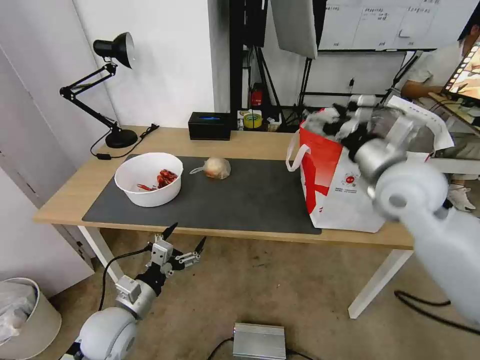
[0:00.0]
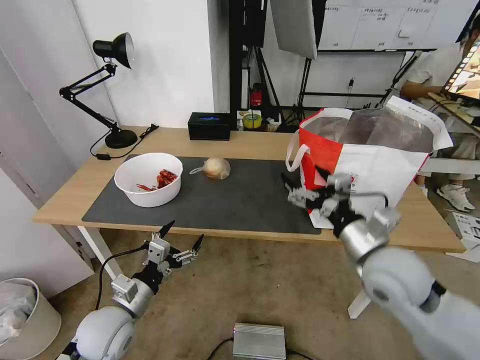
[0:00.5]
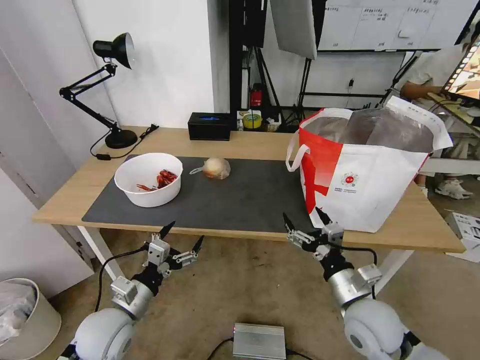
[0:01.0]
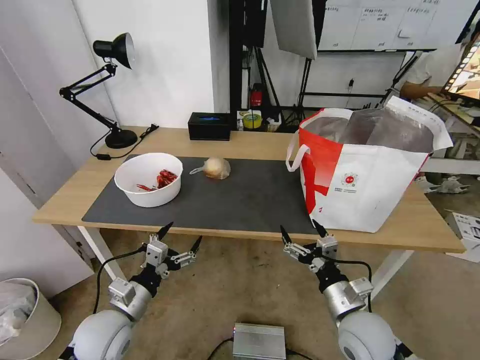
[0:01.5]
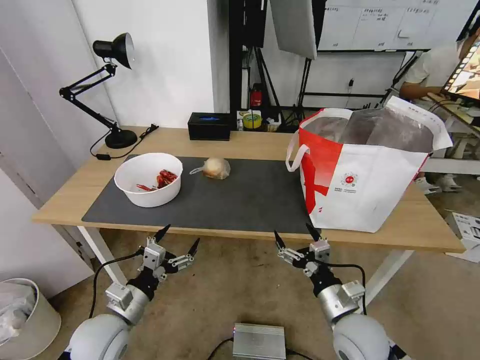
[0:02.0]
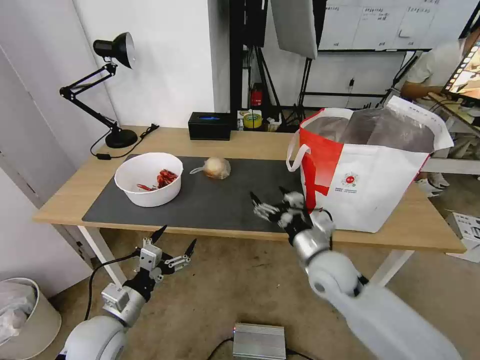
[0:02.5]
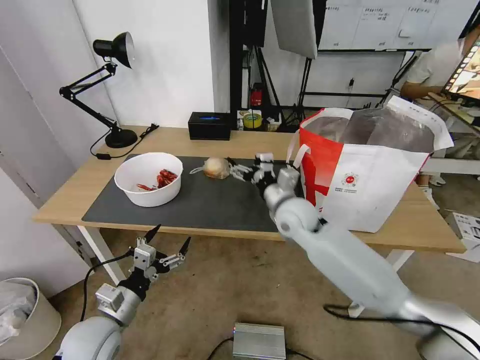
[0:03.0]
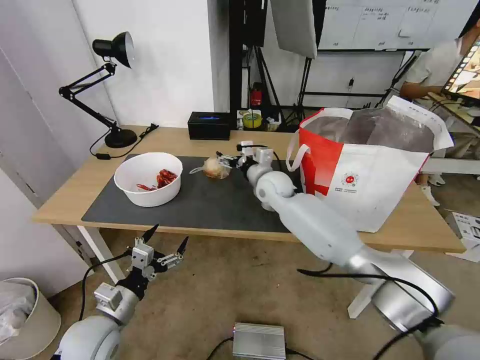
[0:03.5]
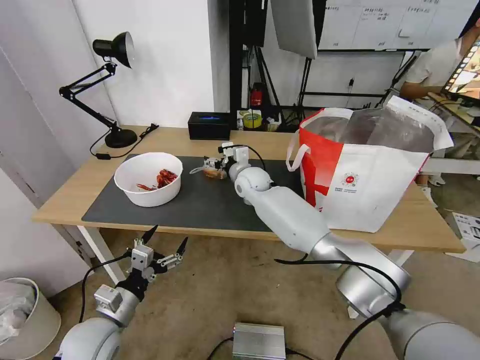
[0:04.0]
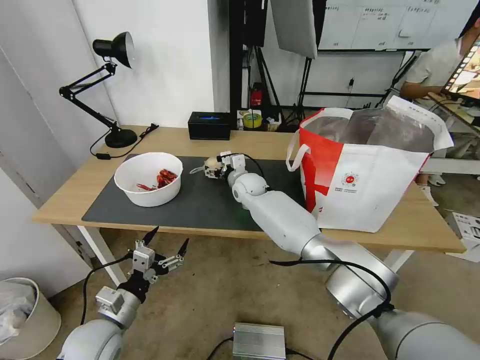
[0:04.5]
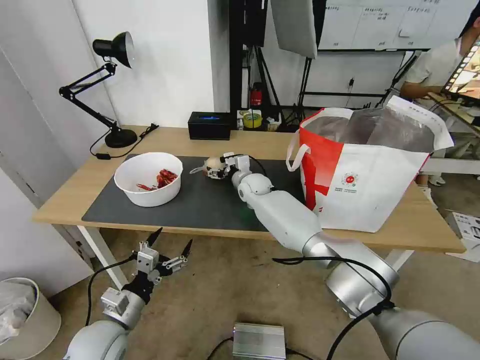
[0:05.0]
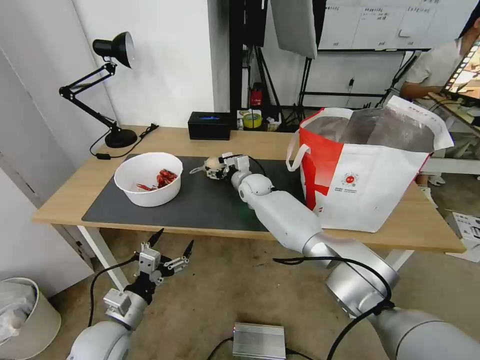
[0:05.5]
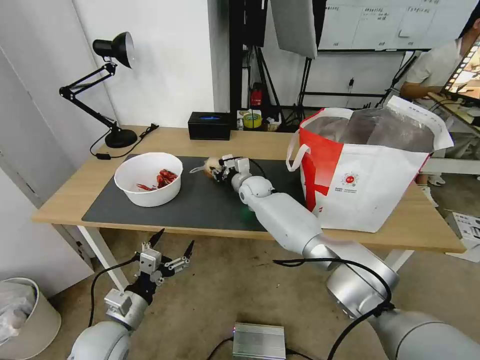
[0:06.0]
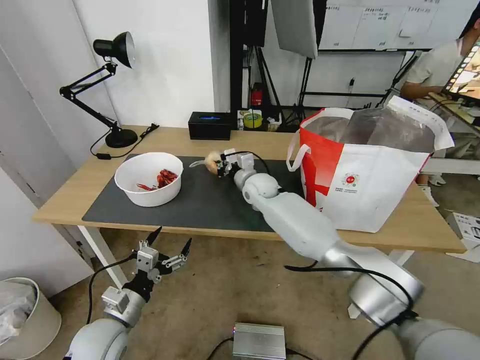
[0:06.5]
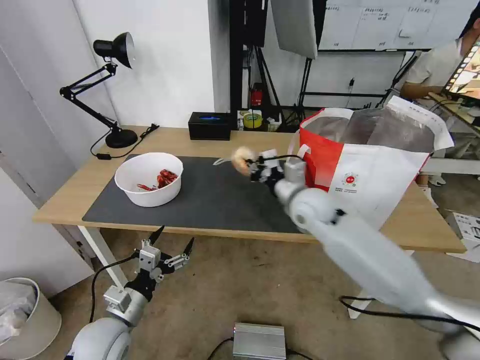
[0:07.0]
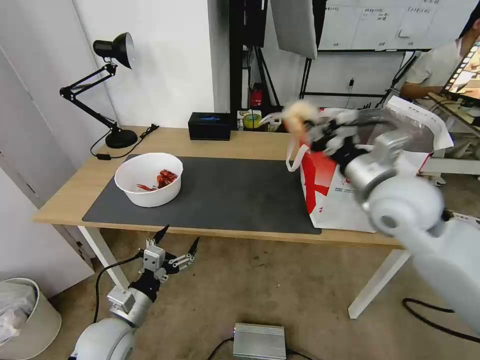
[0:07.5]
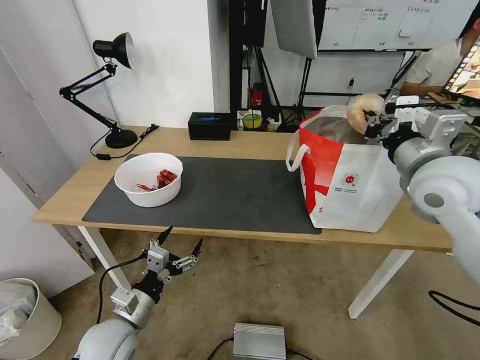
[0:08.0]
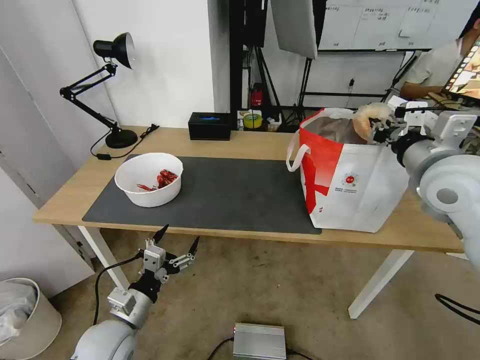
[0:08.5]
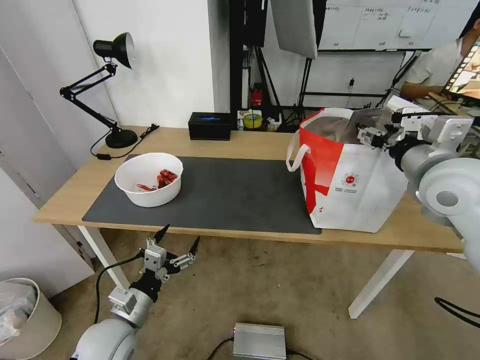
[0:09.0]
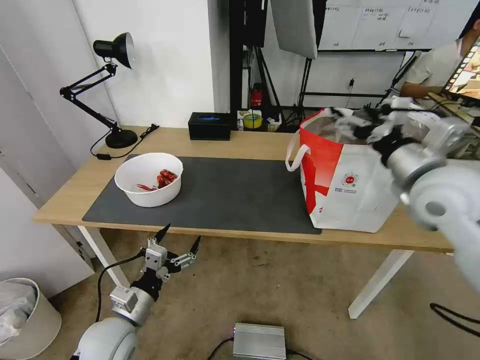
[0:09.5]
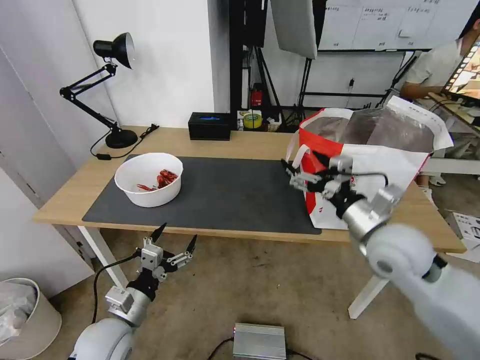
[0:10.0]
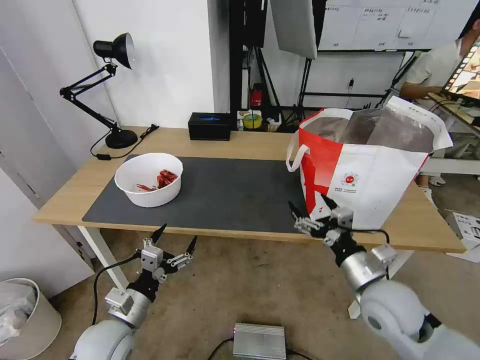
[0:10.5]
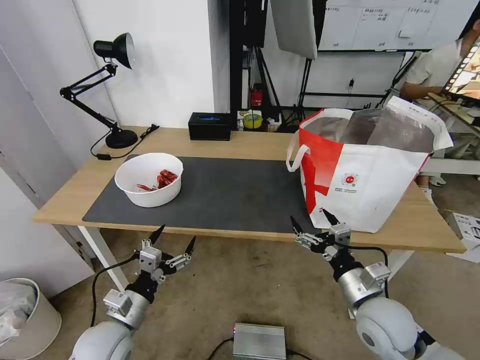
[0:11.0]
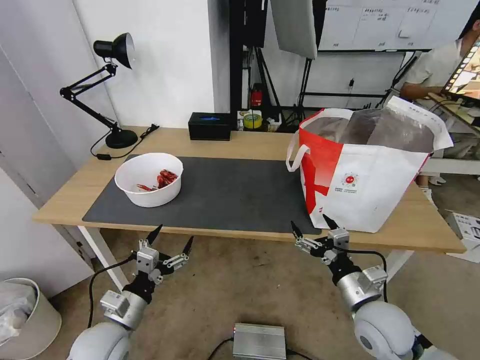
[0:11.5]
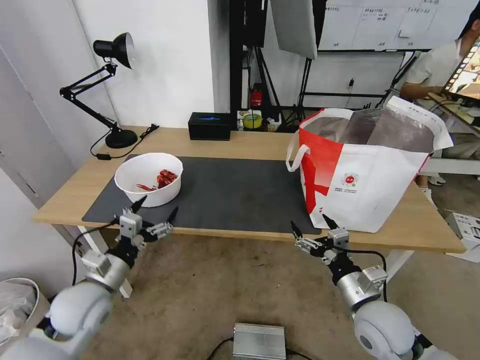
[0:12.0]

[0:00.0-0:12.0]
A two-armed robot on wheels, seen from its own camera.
Task of the whole recording: Pick up the trash from the table and place it into the takeout bag.
0:00.0 to 0:02.0: The right gripper shifts about 30 cm downward and backward.
0:02.0 to 0:04.0: The right gripper travels forward and to the left by about 40 cm.
0:04.0 to 0:06.0: The right gripper shifts by approximately 5 cm, and closes.
0:06.0 to 0:08.0: The right gripper moves to the right, upward and backward, some 40 cm, and closes up.
0:08.0 to 0:10.0: The right gripper travels downward by about 10 cm, and opens its fingers.
0:10.0 to 0:12.0: The right gripper is displaced downward and backward by approximately 15 cm; the left gripper goes approximately 10 cm forward, upward and to the left.

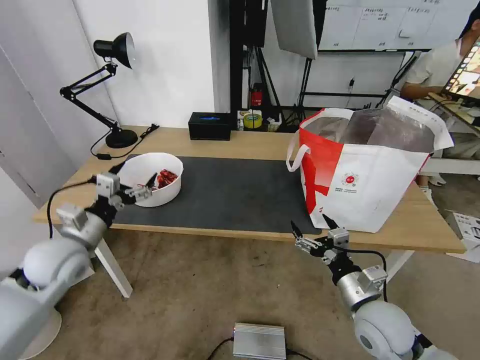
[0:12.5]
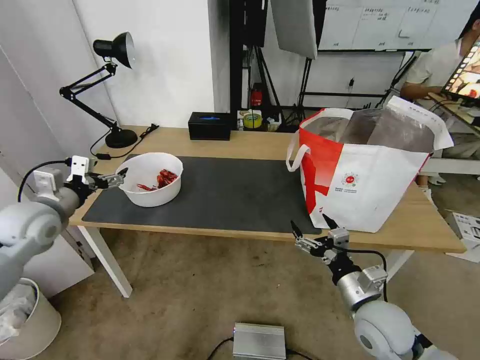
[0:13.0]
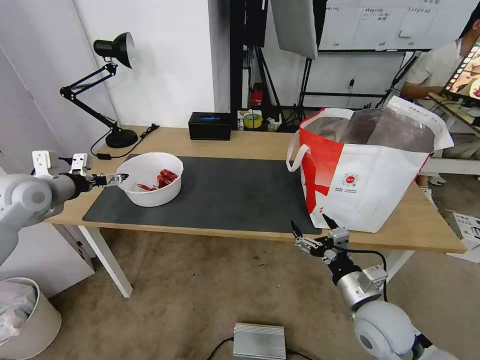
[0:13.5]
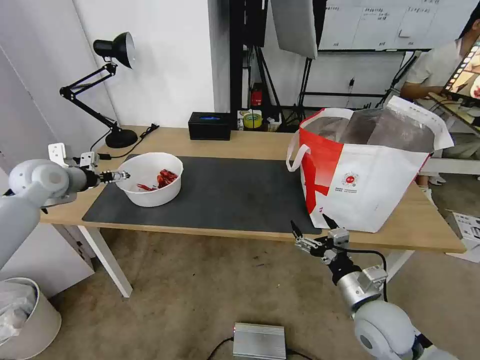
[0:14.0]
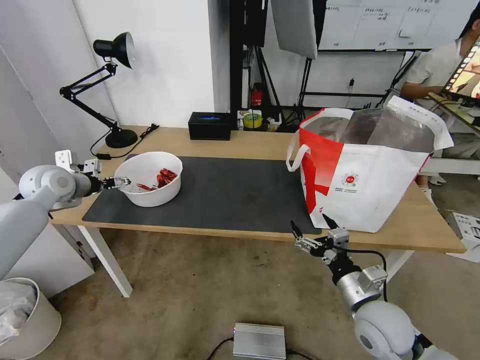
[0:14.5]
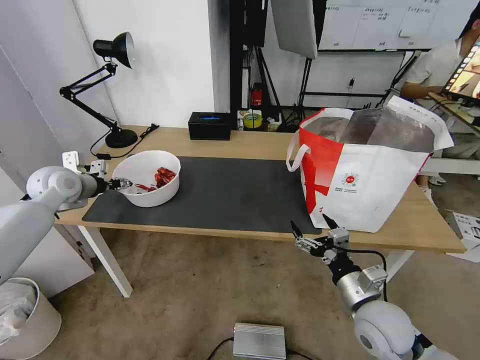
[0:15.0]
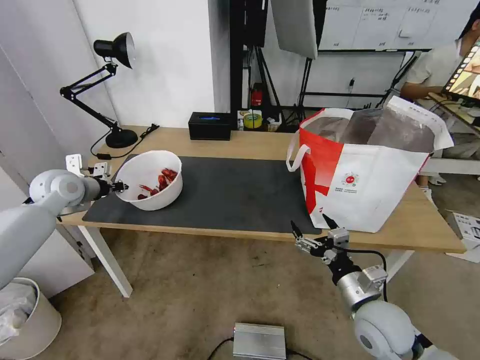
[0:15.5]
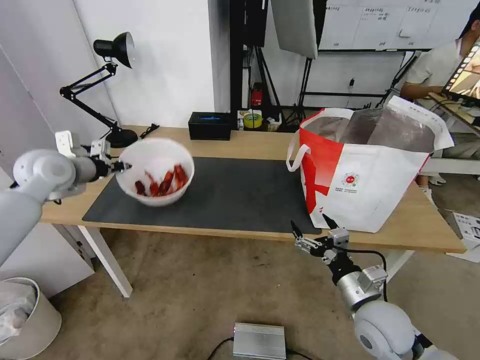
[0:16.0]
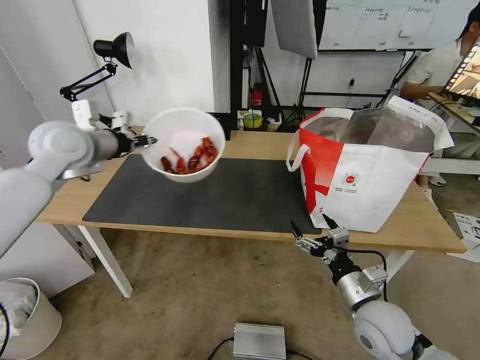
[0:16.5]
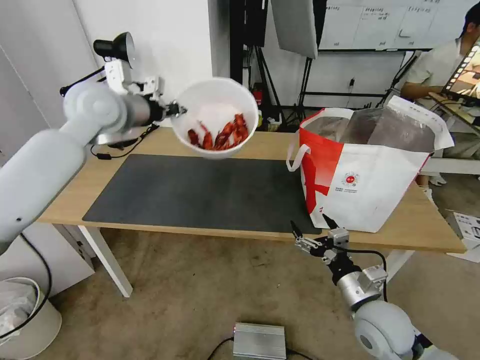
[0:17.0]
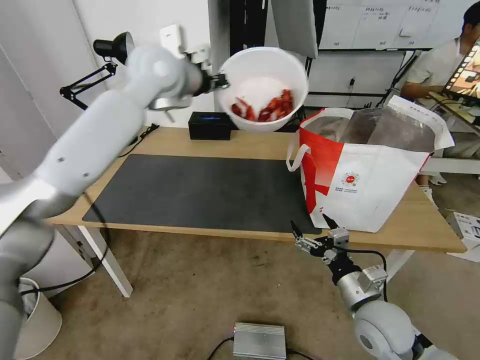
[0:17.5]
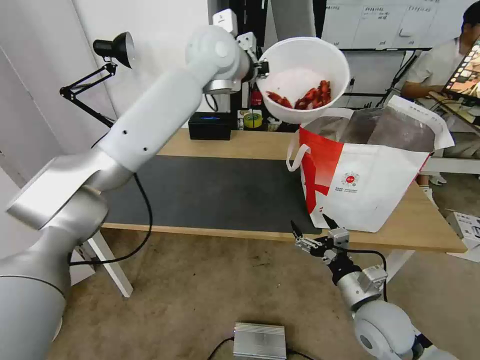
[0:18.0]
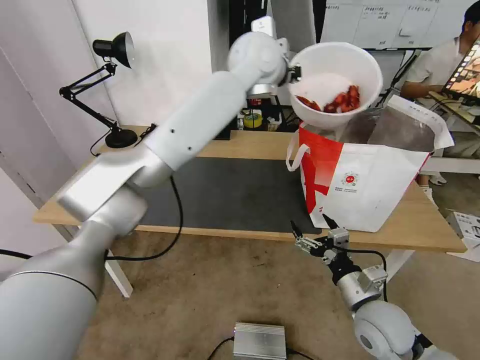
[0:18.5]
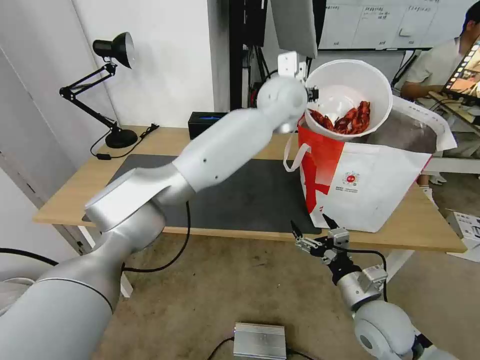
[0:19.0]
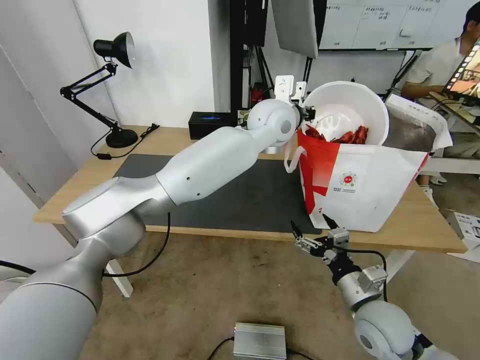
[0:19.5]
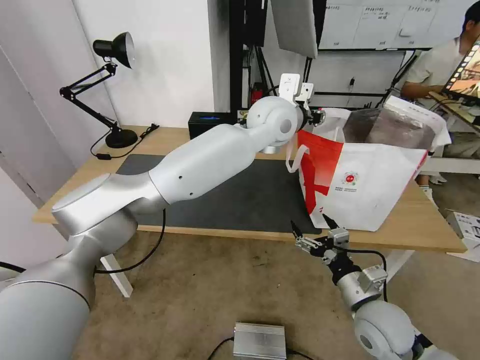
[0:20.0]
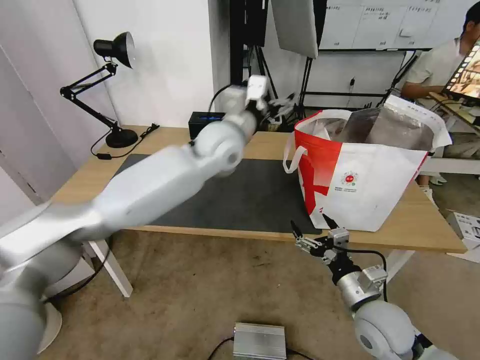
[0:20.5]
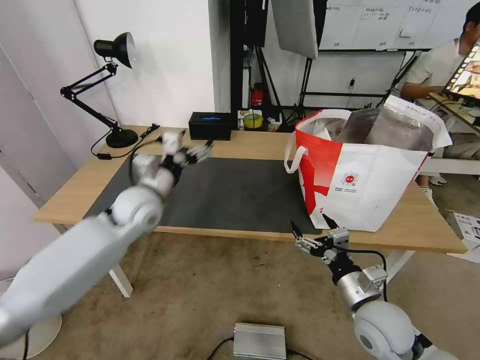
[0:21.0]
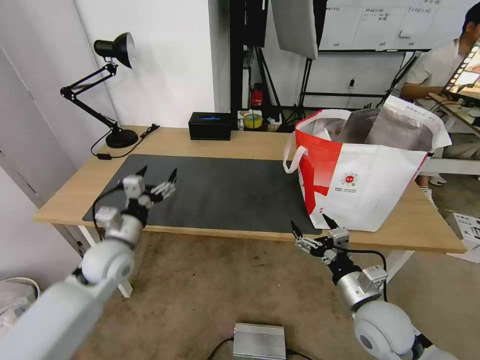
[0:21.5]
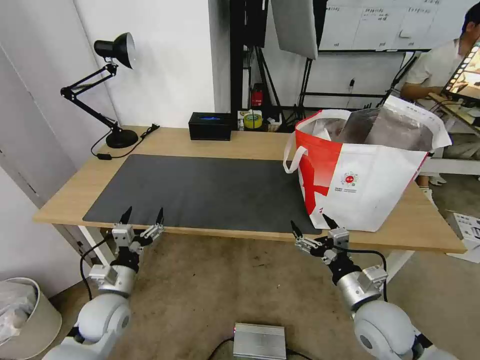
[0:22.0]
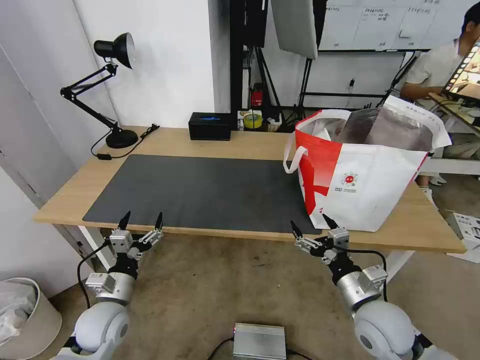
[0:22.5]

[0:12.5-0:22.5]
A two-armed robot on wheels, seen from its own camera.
Task of the whole recording: Pick up the trash from the table and place it into the takeout bag.
0:12.5 to 0:14.5: The left gripper heads forward and to the left, covering about 20 cm.
0:14.5 to 0:16.5: The left gripper goes some 15 cm upward and to the right, and closes its fingers.
0:16.5 to 0:18.5: The left gripper shifts approximately 35 cm to the right.
0:18.5 to 0:20.5: The left gripper travels downward, to the left and backward by approximately 15 cm, and opens its fingers.
0:20.5 to 0:22.5: The left gripper shifts roughly 50 cm downward, to the left and backward.
